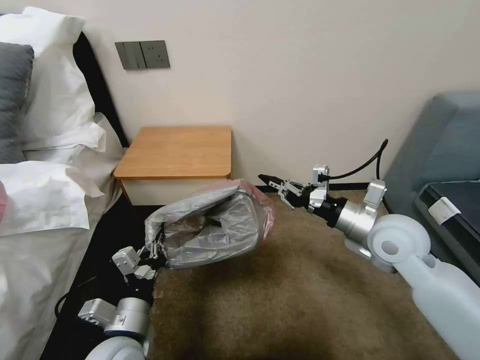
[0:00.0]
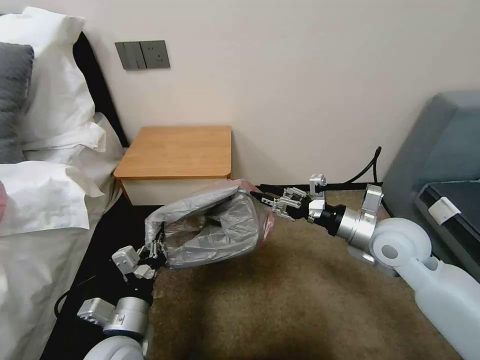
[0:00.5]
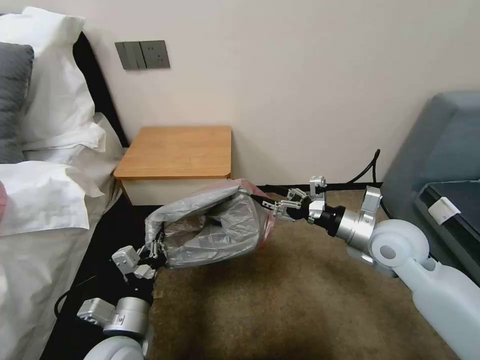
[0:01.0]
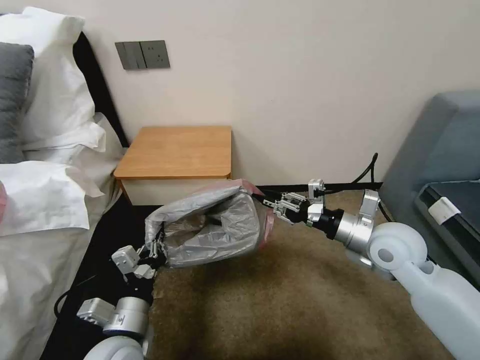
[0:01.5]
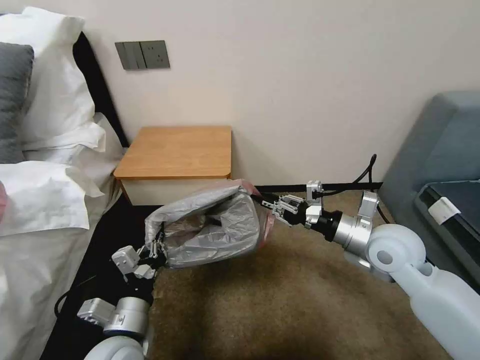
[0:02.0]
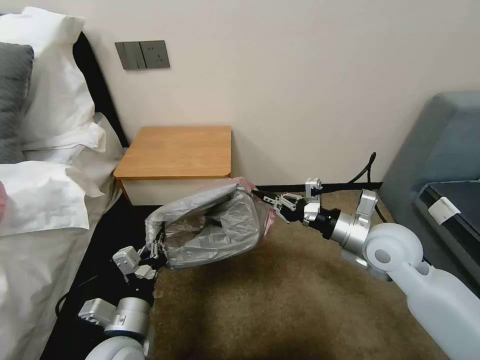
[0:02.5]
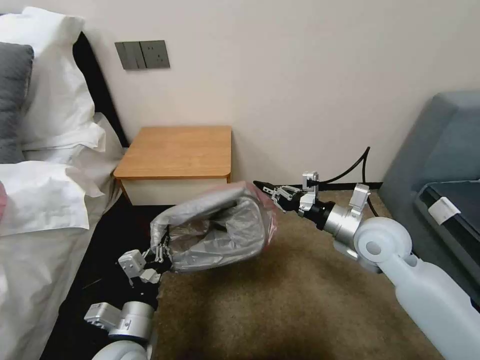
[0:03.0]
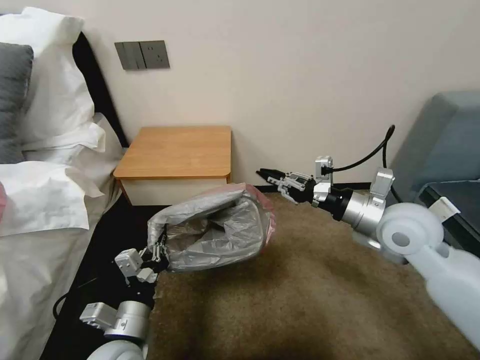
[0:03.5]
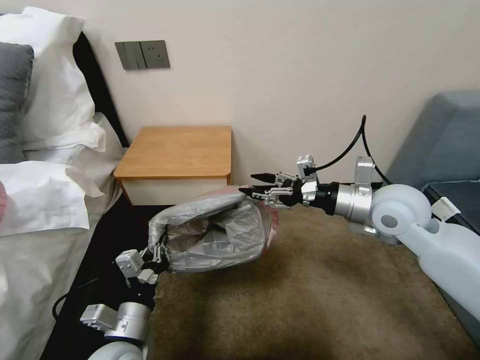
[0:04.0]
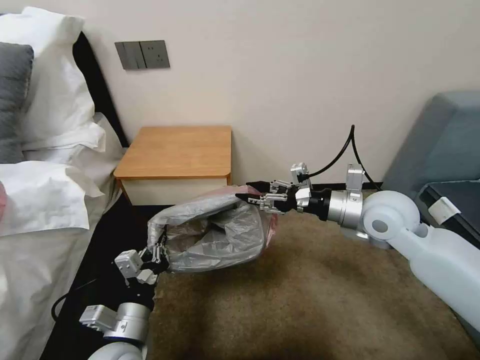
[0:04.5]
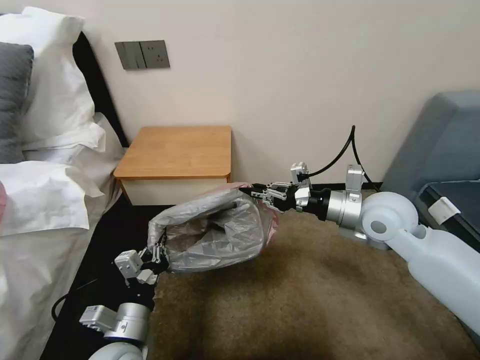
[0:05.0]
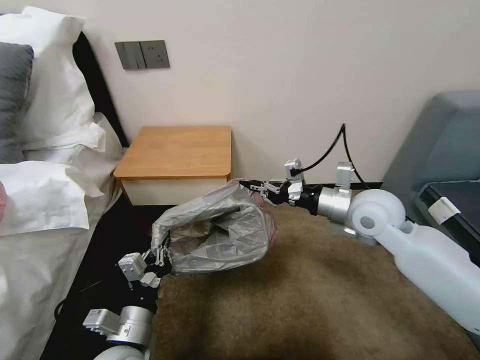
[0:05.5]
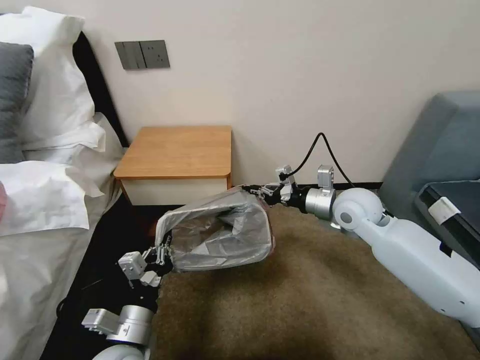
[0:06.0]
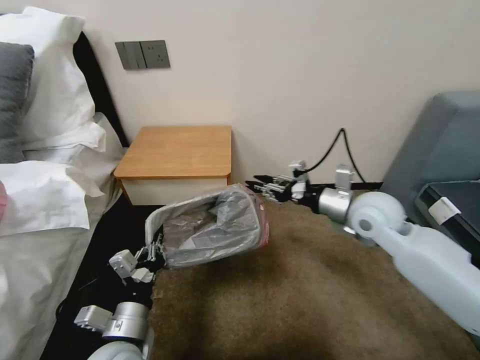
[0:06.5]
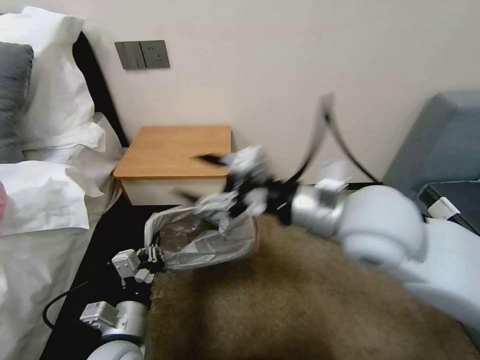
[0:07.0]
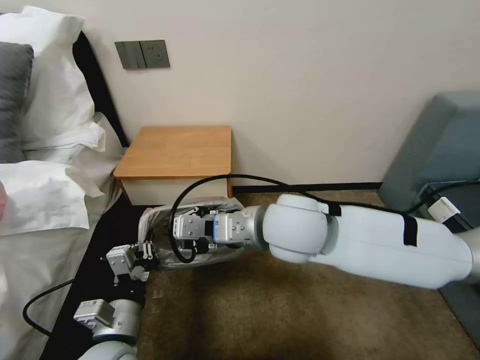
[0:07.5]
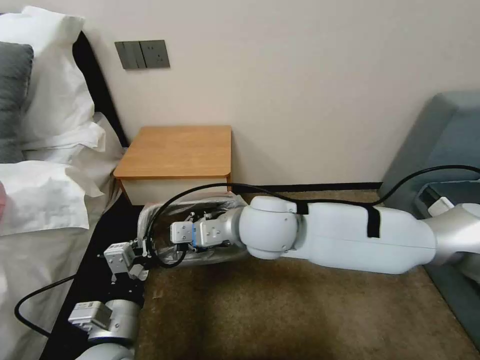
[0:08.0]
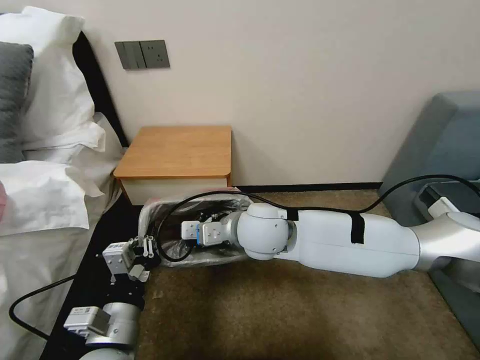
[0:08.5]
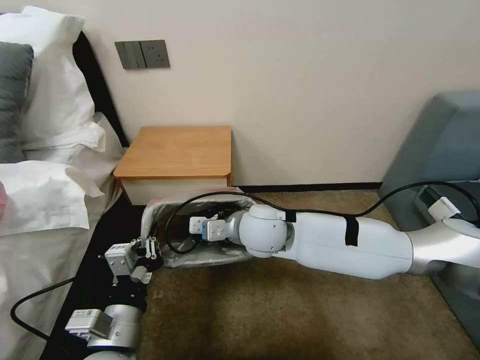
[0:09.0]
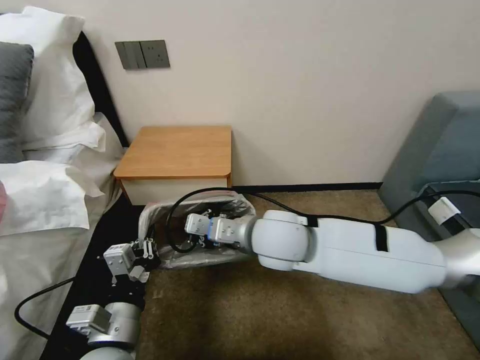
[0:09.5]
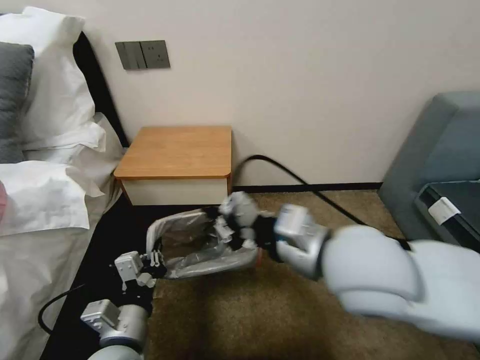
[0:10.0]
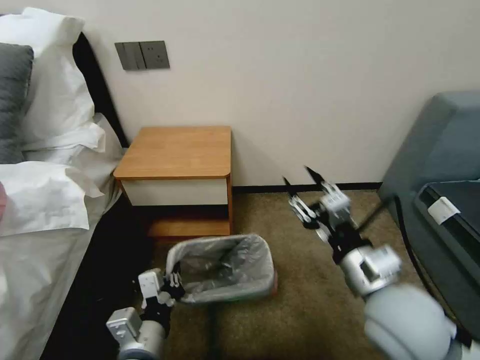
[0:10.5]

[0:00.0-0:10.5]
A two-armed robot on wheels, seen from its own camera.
Task of the whole recording: Pick up the garbage bag from the table and place it over the trash can.
0:00.0 to 0:02.0: The right gripper opens, then closes again.
0:02.0 to 0:04.0: The right gripper is displaced upward by roughly 5 cm, and opens its fingers.
0:04.0 to 0:06.5: The right gripper closes.
0:06.5 to 0:08.5: The right gripper moves to the left, approximately 25 cm, and closes its fingers. The left gripper shifts roughly 5 cm upward.
0:08.5 to 0:10.5: The right gripper is displaced to the right and backward by about 25 cm, and opens.

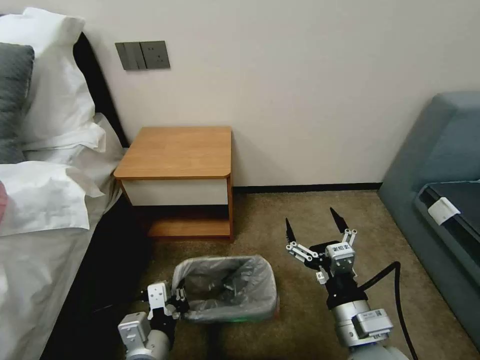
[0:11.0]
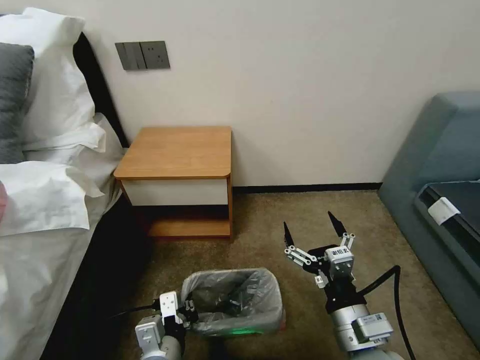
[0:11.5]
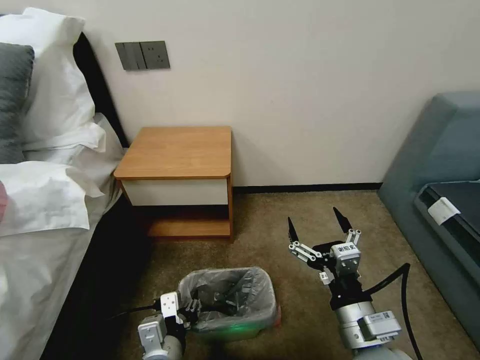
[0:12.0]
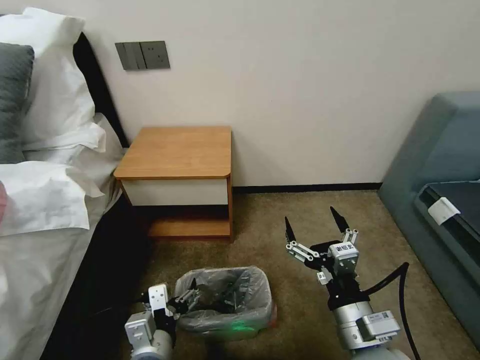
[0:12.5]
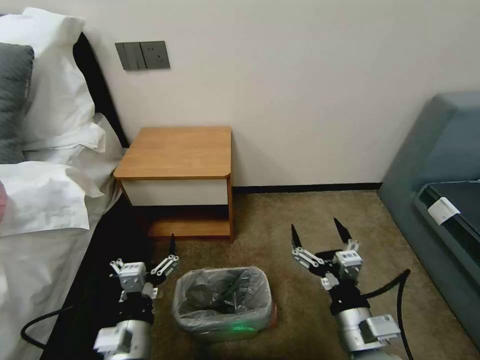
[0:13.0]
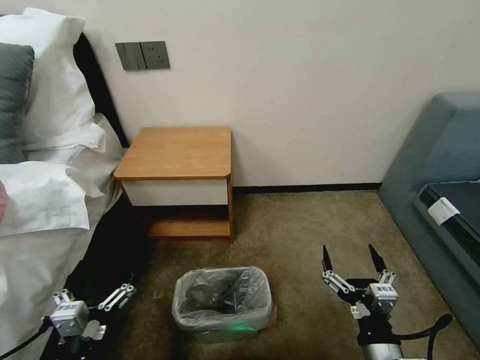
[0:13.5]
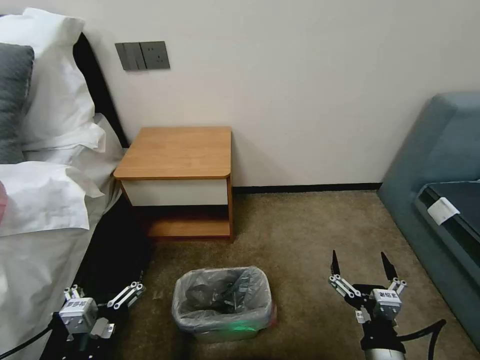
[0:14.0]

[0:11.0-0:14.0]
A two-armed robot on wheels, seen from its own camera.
Task of the whole recording: Pick up the garbage bag from the table and place it over the trash can.
0:11.0 to 0:12.5: The left gripper opens.
0:12.5 to 0:14.0: The right gripper goes about 10 cm downward and backward, while the left gripper travels to the left and backward by about 10 cm.

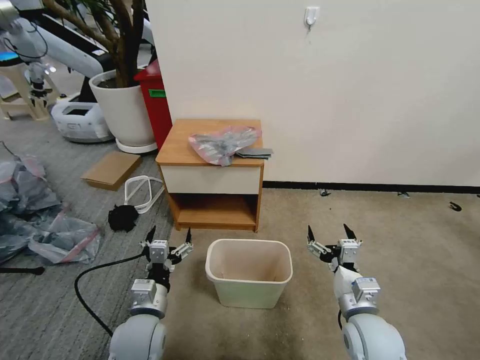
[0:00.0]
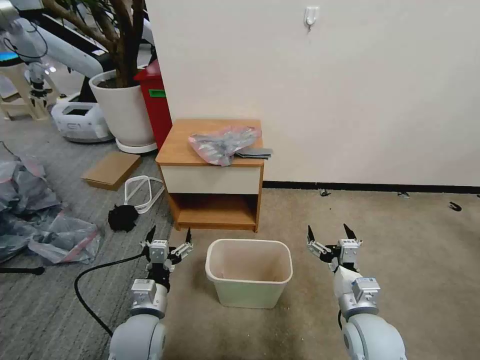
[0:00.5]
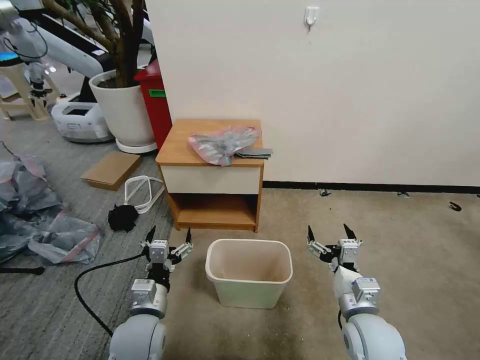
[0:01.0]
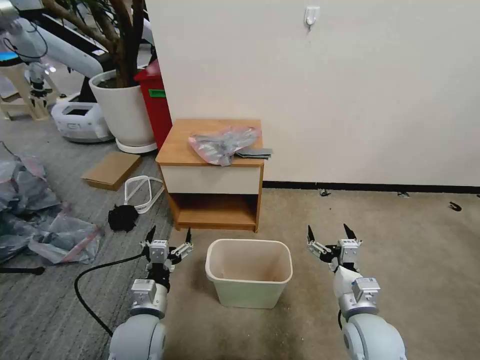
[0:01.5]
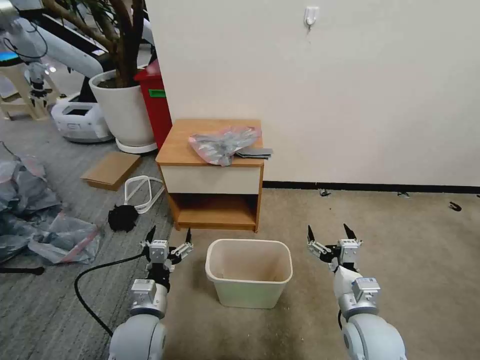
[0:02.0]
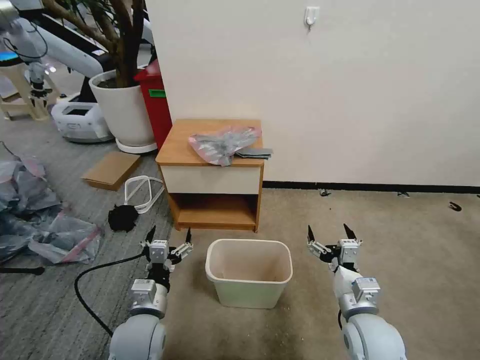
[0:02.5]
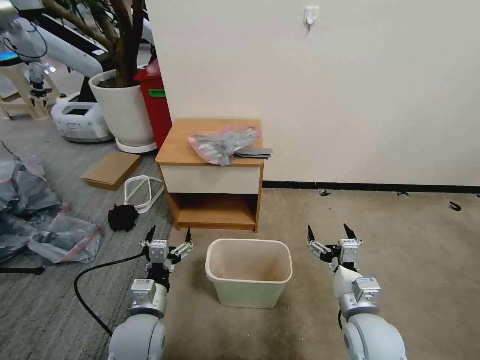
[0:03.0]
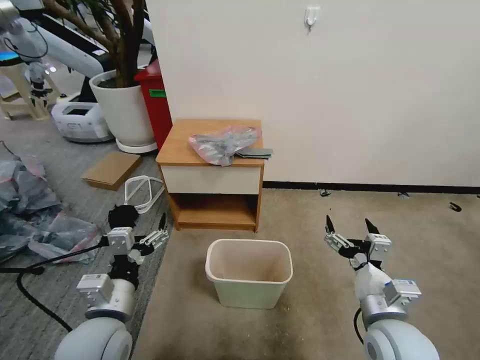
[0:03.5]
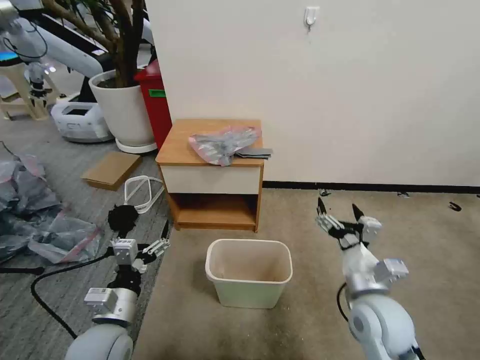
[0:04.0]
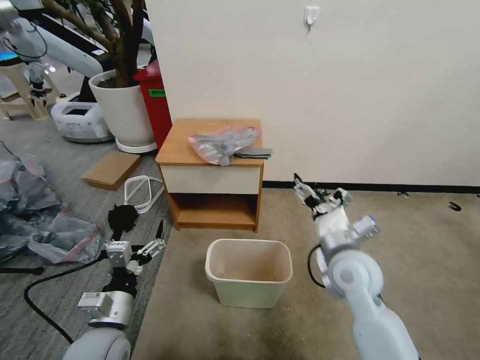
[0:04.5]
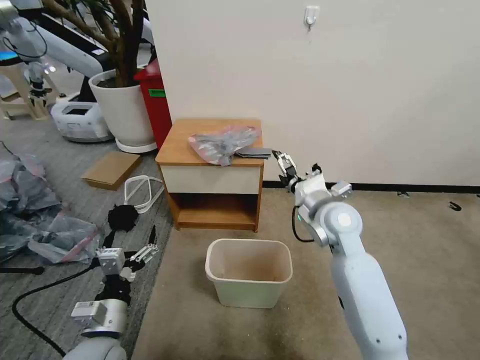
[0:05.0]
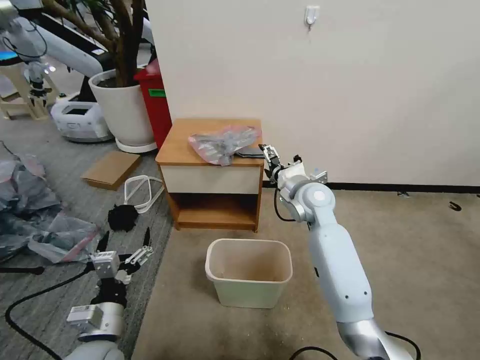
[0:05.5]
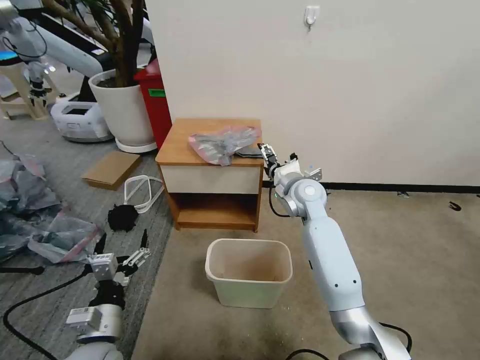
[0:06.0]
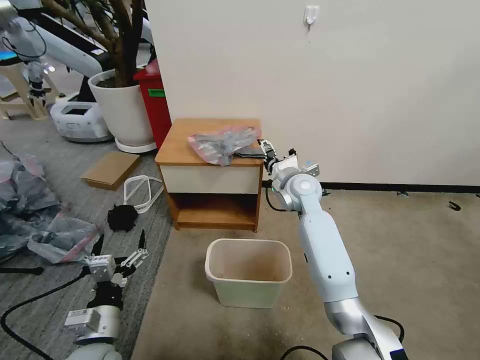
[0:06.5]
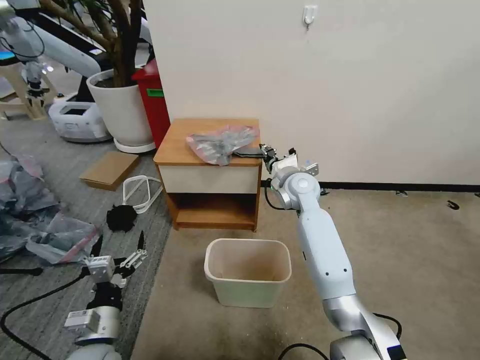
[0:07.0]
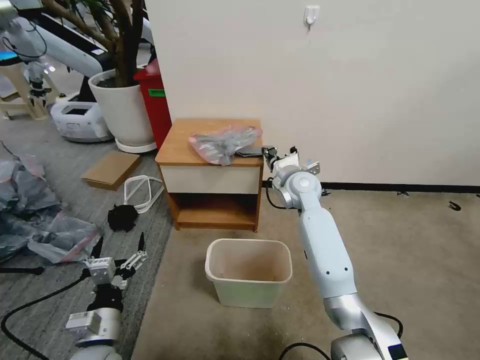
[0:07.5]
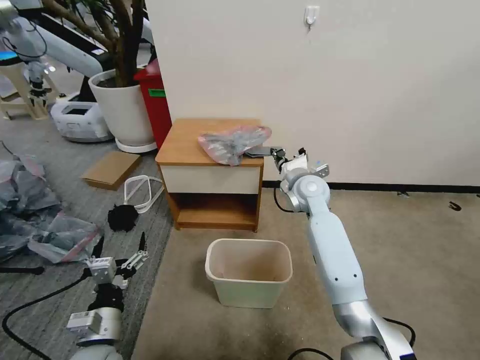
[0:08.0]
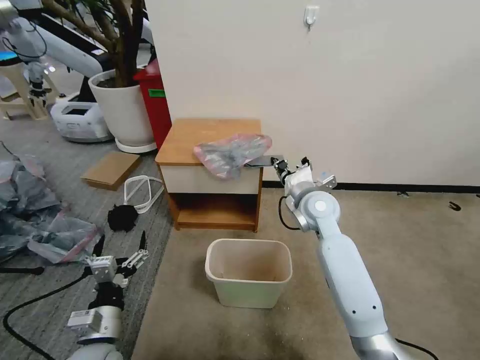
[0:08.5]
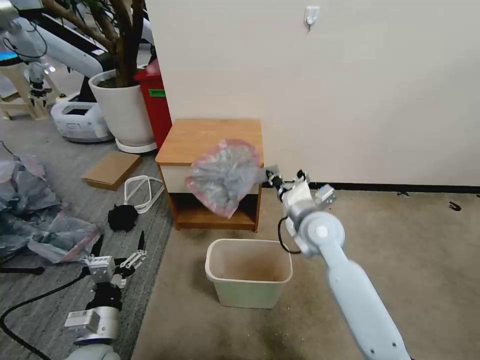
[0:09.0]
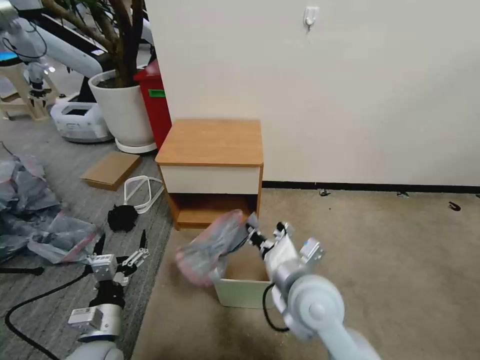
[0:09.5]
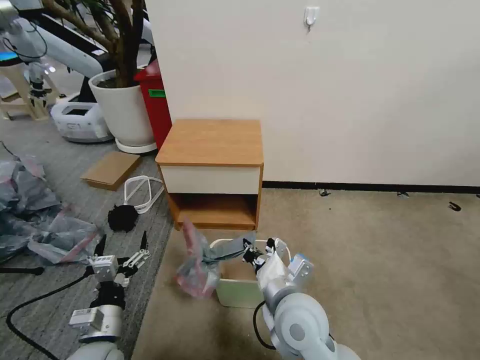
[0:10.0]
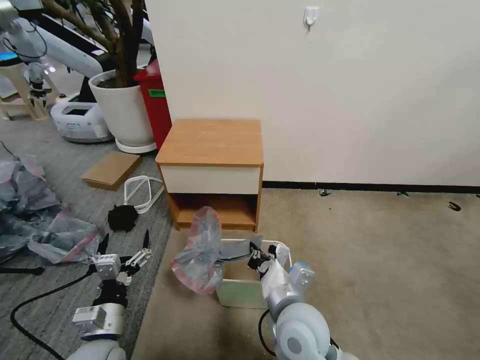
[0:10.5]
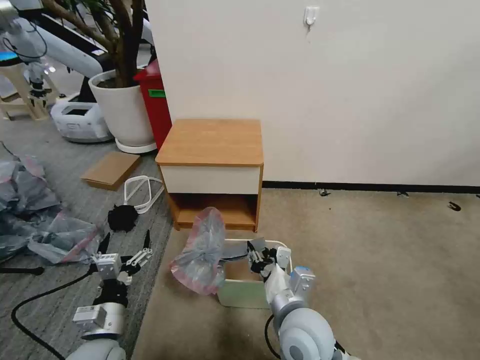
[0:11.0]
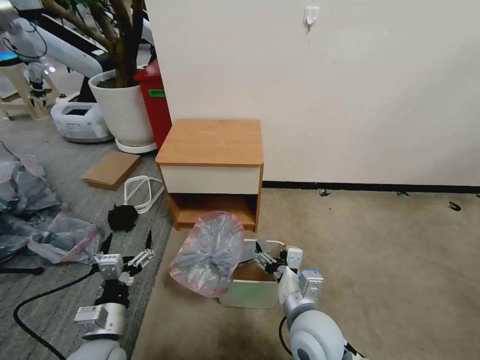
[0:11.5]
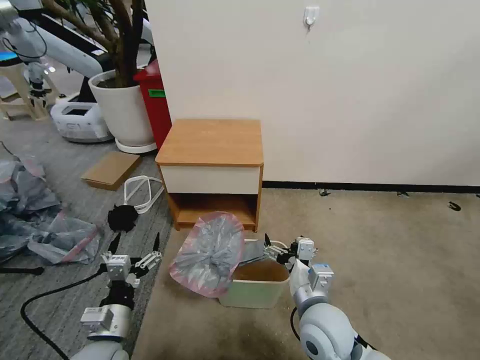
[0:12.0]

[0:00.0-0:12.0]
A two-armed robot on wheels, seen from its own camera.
Task of the whole recording: Pick up the garbage bag from the table and place it over the trash can.
0:02.0 to 0:04.0: The right gripper goes some 5 cm upward.
0:04.0 to 0:06.0: The right gripper shifts roughly 25 cm forward.
0:06.0 to 0:08.0: The right gripper closes up.
0:08.0 to 0:10.0: The right gripper is displaced backward by about 30 cm.
0:10.0 to 0:12.0: The right gripper moves to the right, about 5 cm, and opens its fingers.
